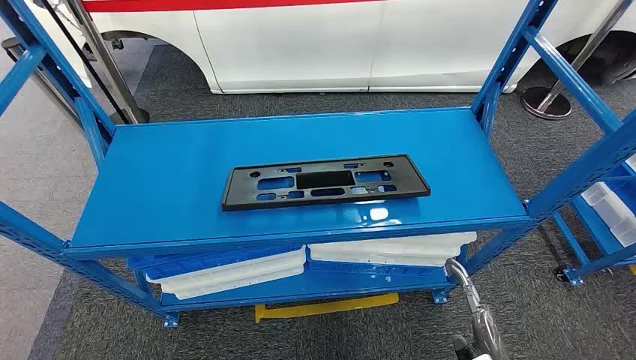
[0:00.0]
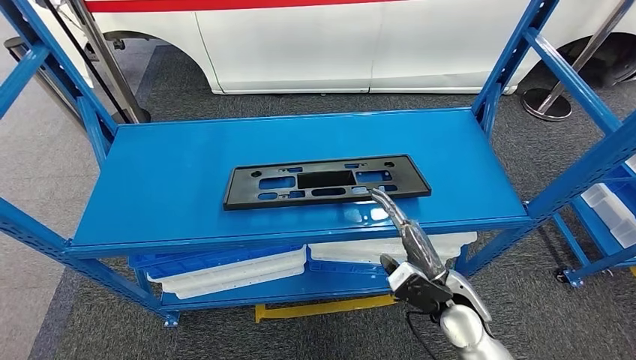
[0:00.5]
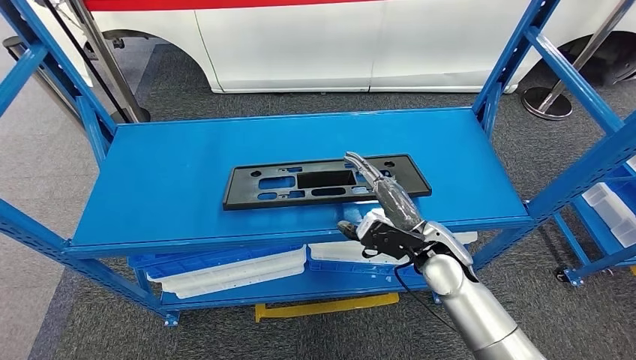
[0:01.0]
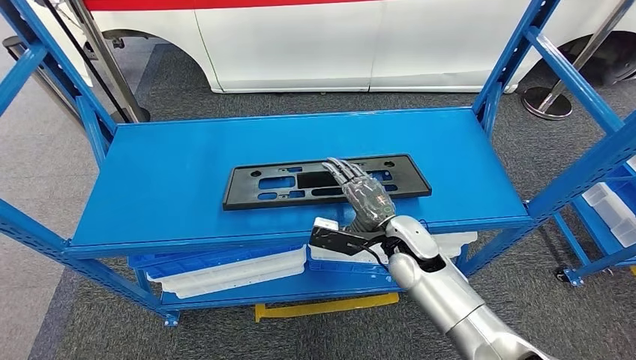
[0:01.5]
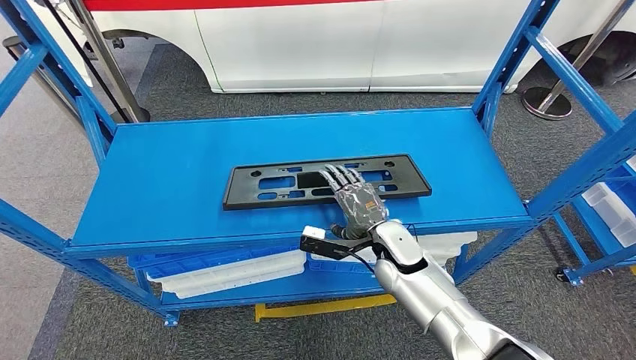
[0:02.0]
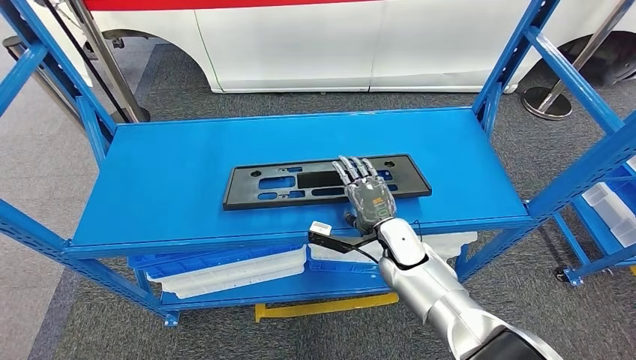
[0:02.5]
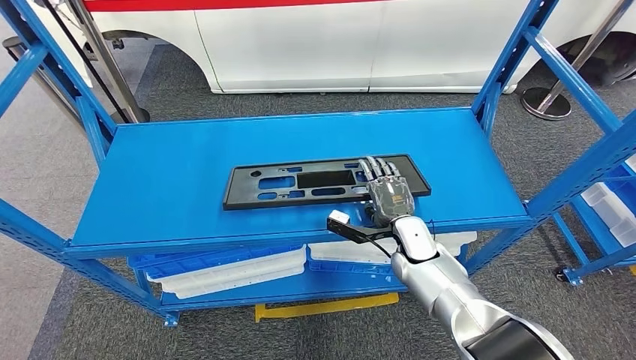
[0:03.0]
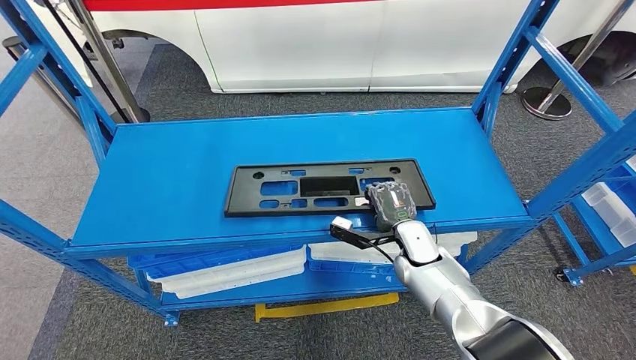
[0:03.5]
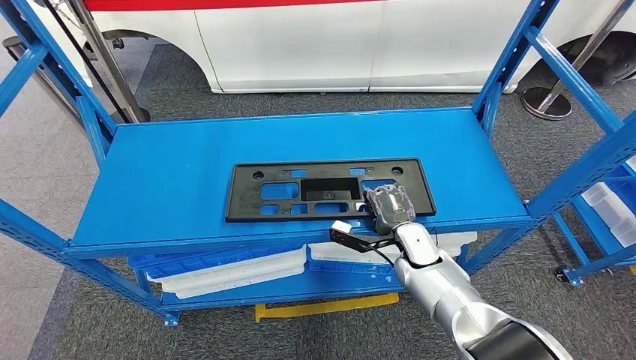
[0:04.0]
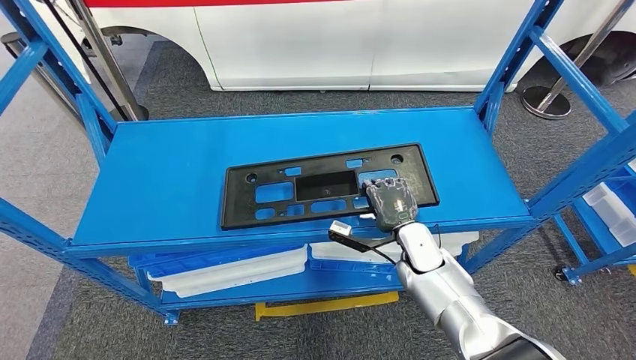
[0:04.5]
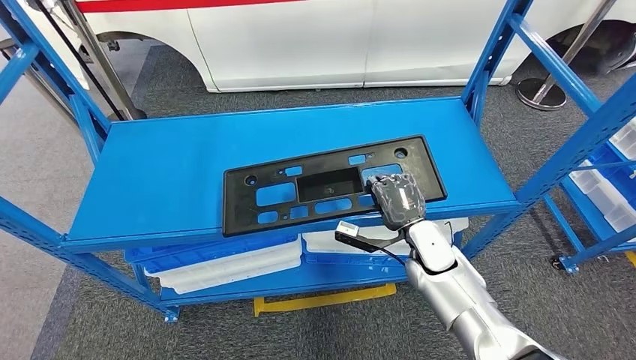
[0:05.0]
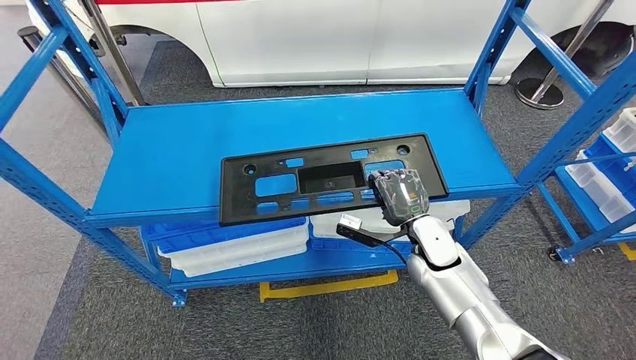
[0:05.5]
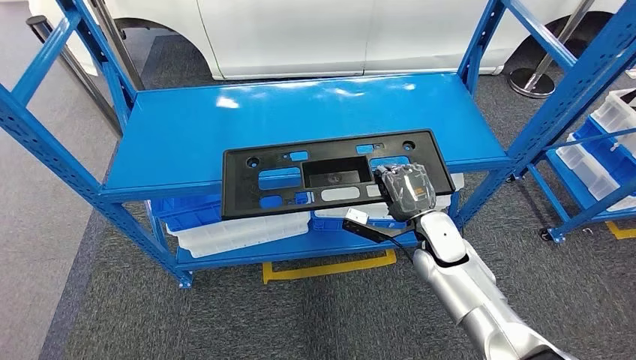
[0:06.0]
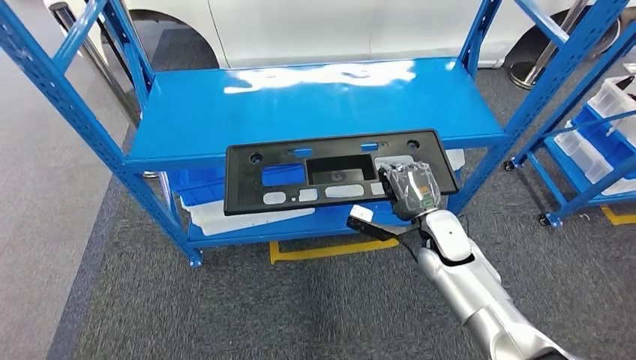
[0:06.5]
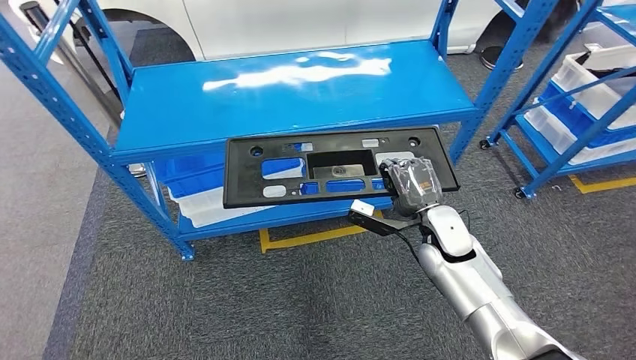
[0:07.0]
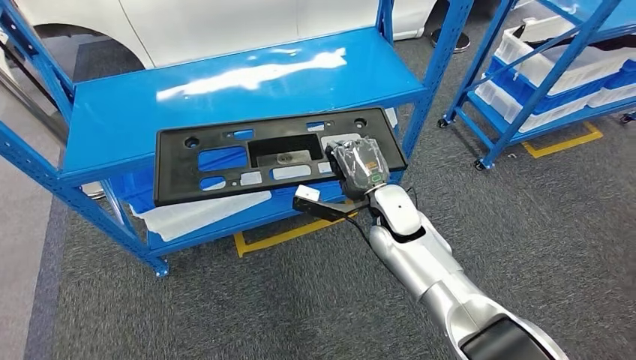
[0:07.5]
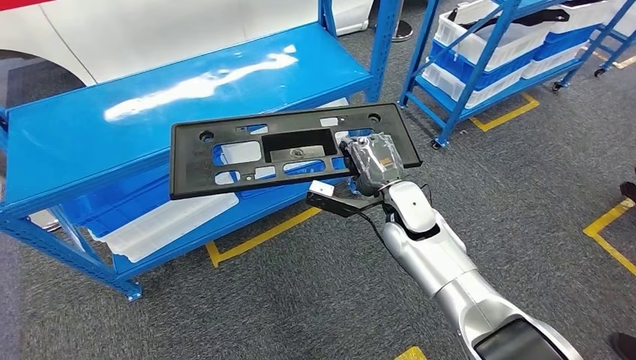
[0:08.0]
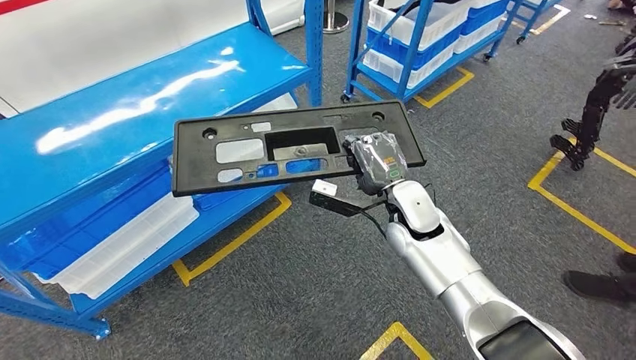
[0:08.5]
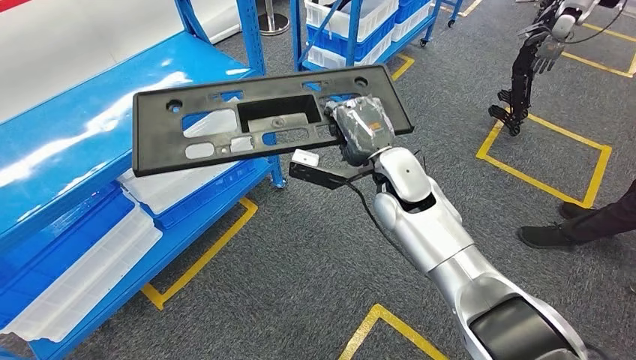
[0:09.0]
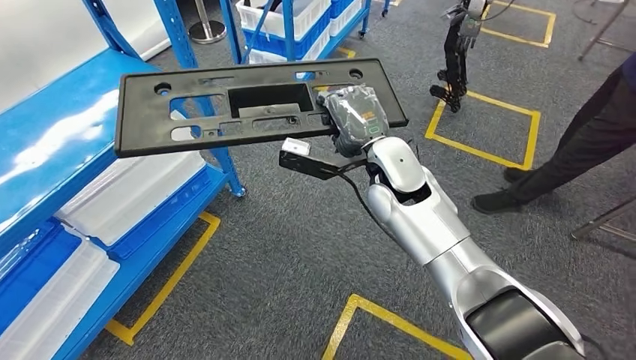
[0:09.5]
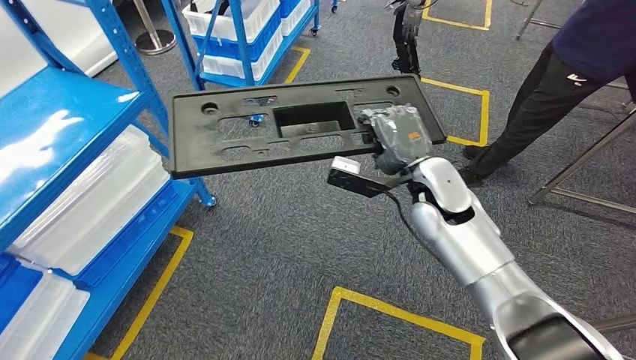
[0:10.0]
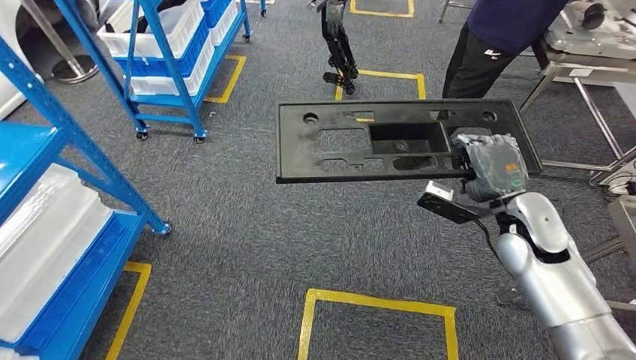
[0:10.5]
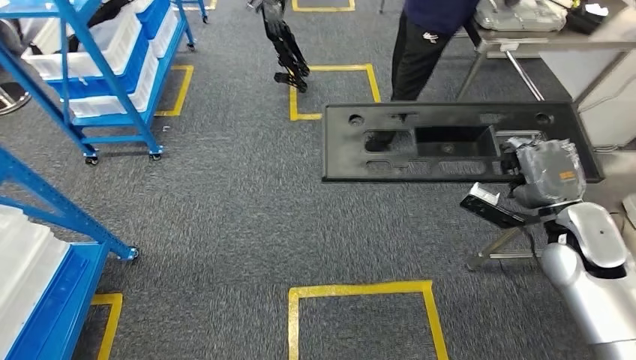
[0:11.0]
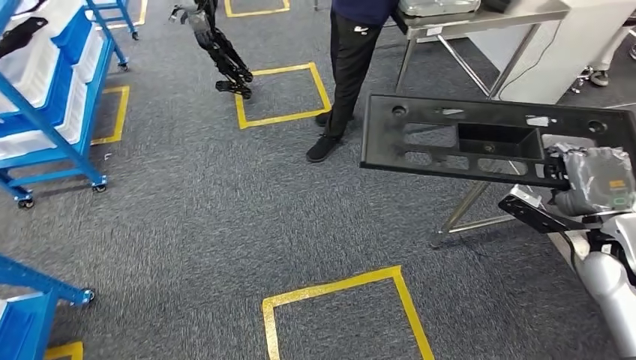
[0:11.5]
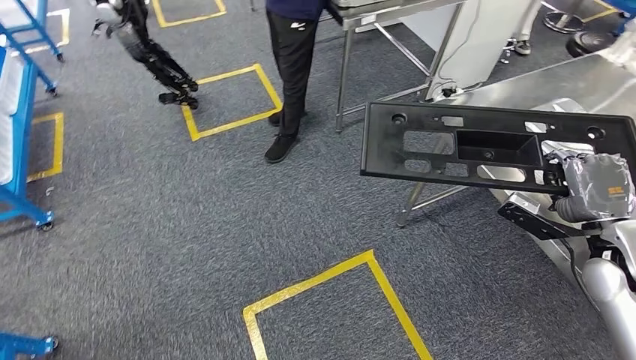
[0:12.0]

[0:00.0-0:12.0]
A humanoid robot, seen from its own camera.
Step, 0:00.0 to 0:06.5: Pick up the large material from the shelf.
0:02.0 to 0:04.0: The right hand shifts about 5 cm to the right.

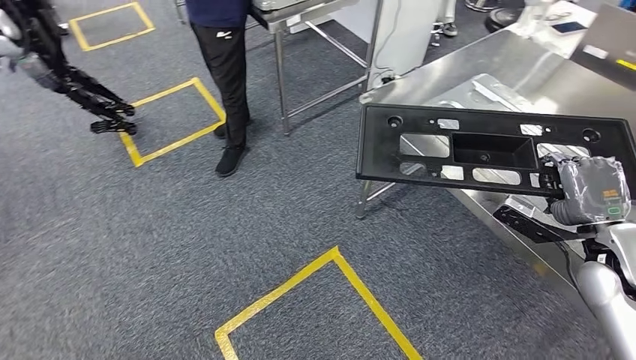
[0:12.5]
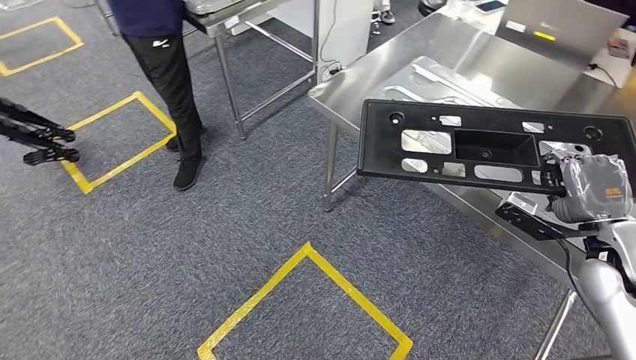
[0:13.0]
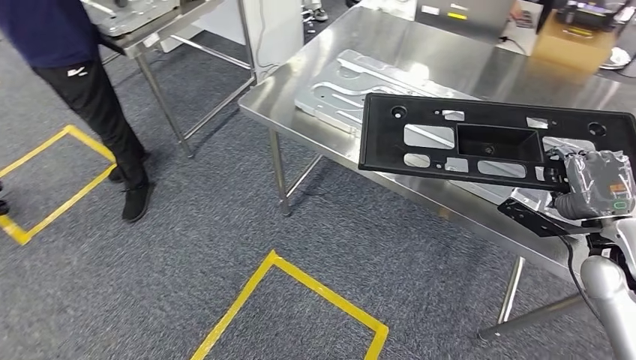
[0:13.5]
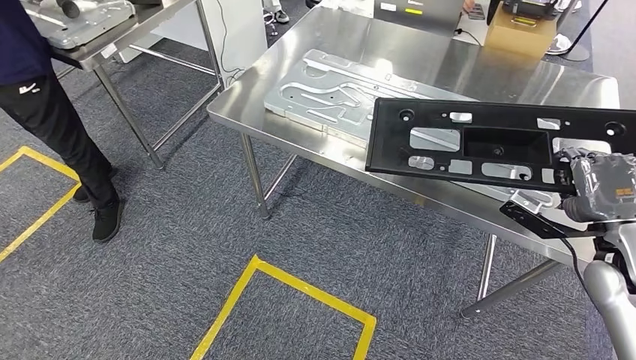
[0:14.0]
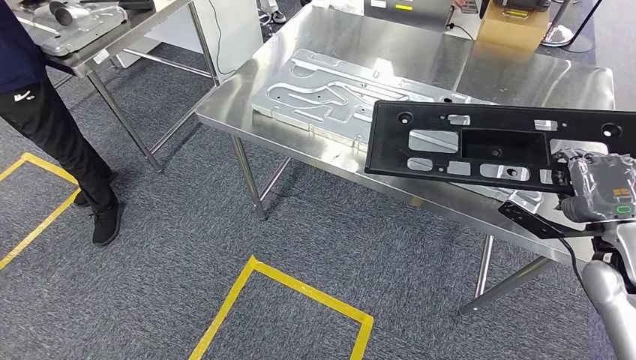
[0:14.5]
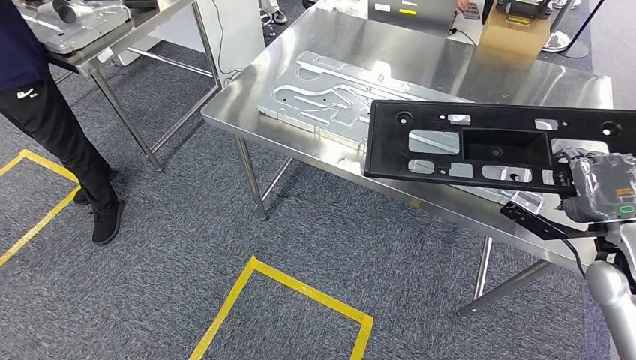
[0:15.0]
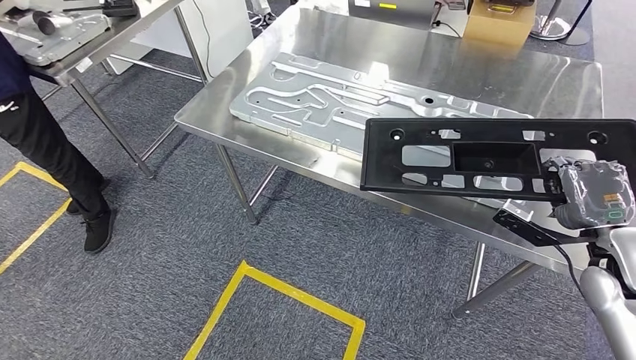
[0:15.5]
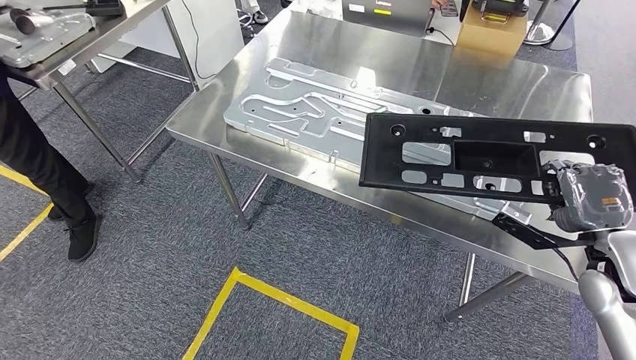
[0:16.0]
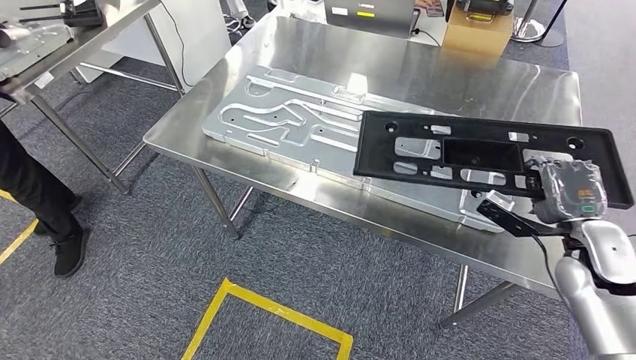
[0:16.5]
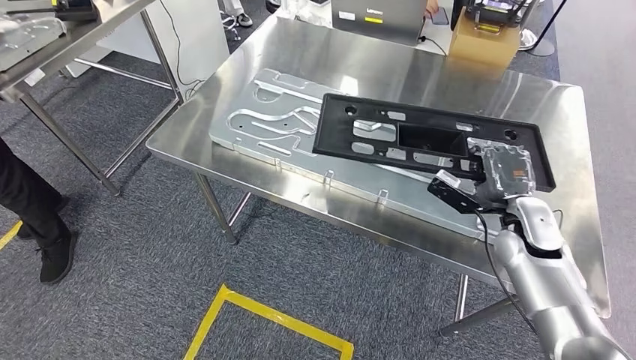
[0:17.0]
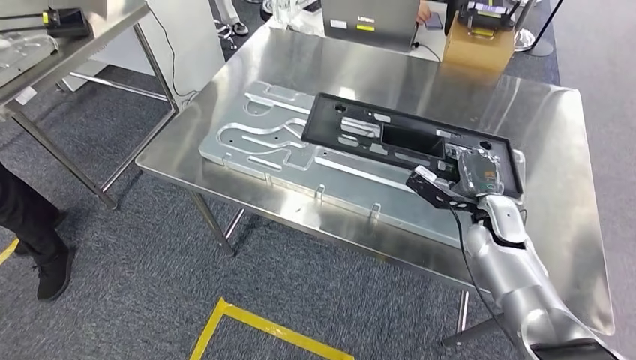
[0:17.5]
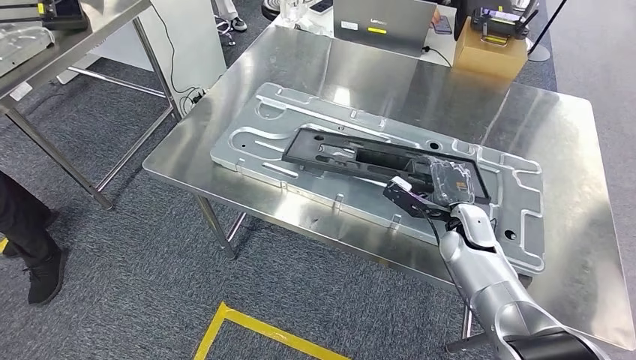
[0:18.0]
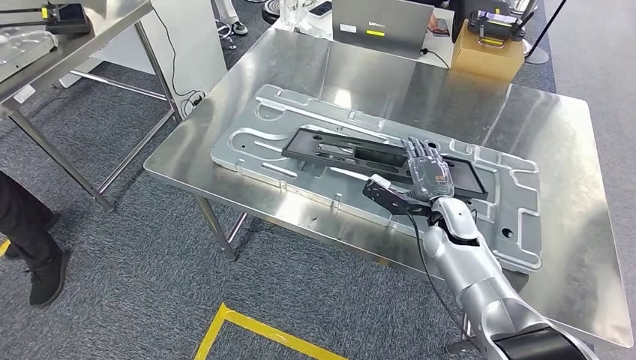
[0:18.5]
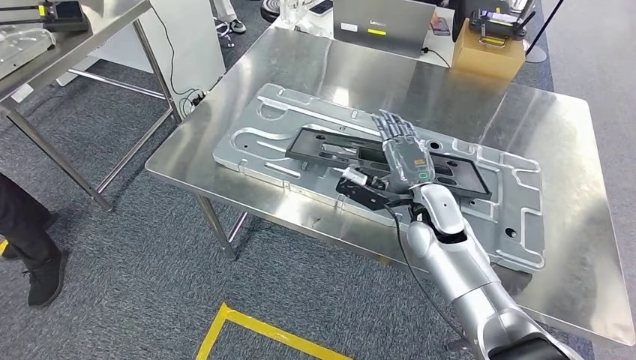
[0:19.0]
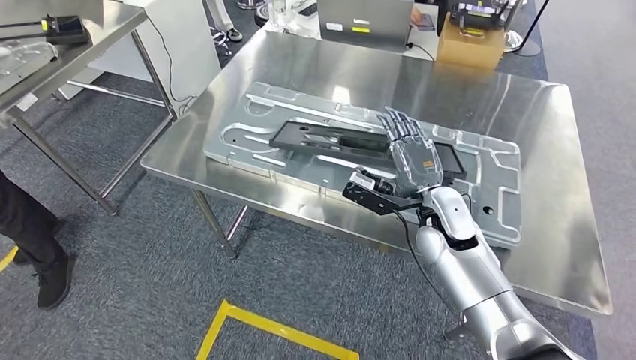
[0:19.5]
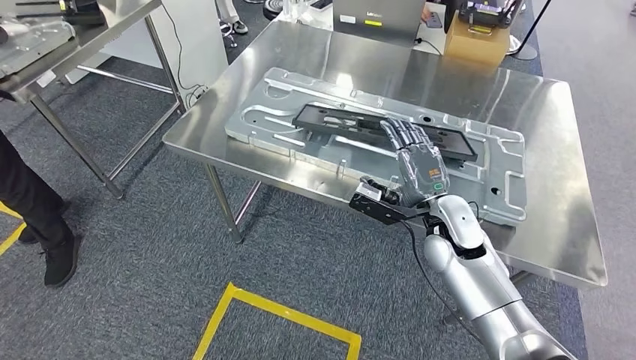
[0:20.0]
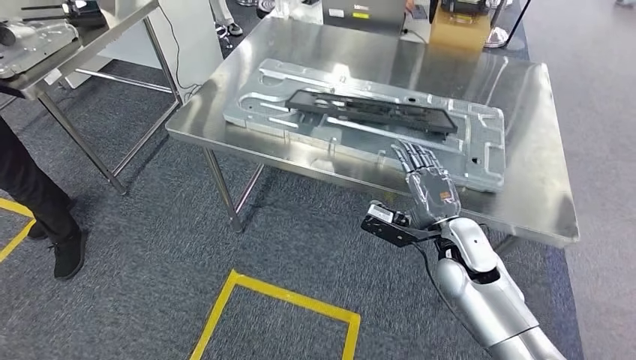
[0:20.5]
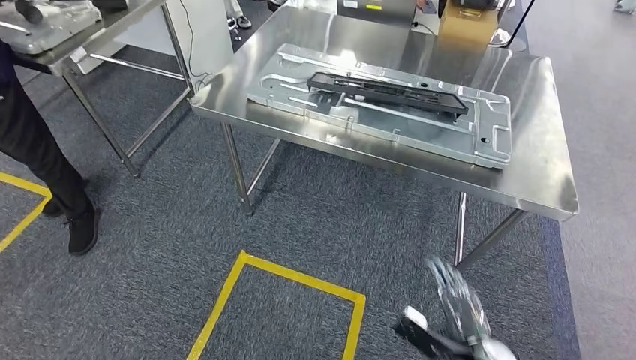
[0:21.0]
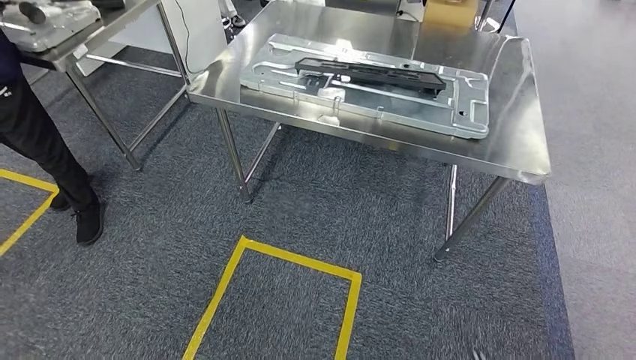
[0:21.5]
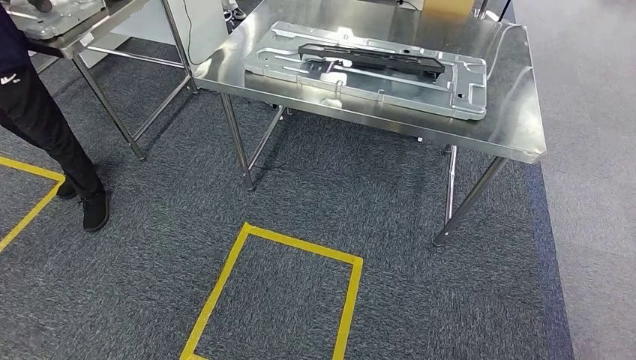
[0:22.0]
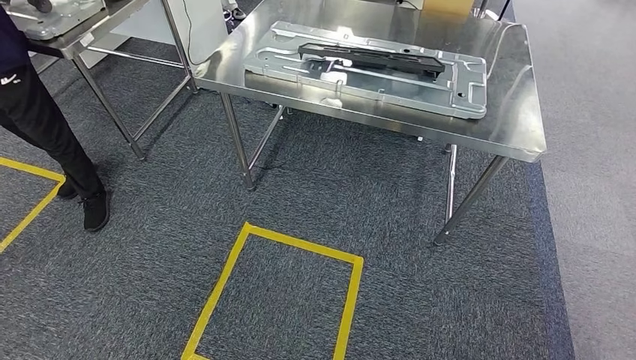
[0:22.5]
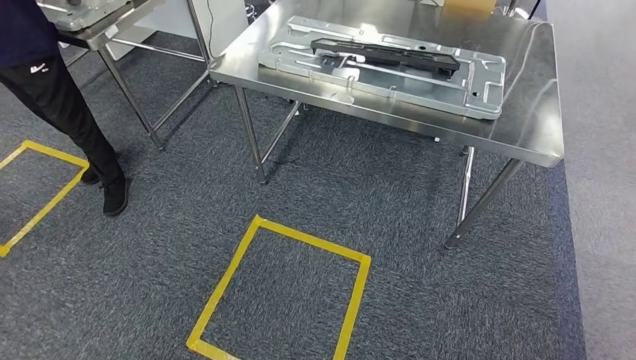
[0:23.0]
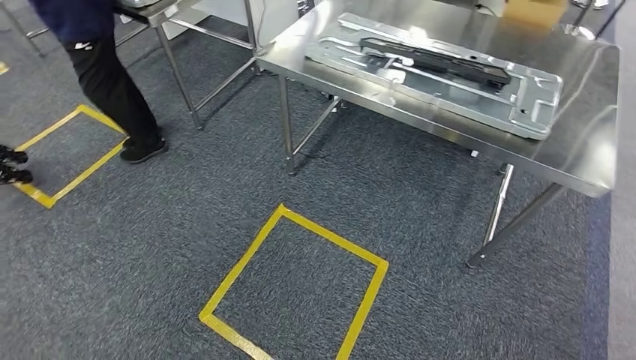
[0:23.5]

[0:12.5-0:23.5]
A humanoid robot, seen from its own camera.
Step, 0:12.5 to 0:16.5: Move the large material to the workbench.
Step, 0:18.0 to 0:22.0: Insert the large material into the corresponding slot on the workbench.
